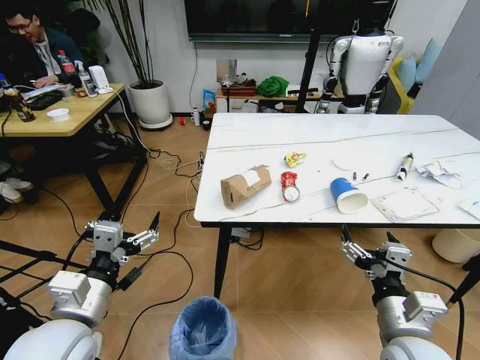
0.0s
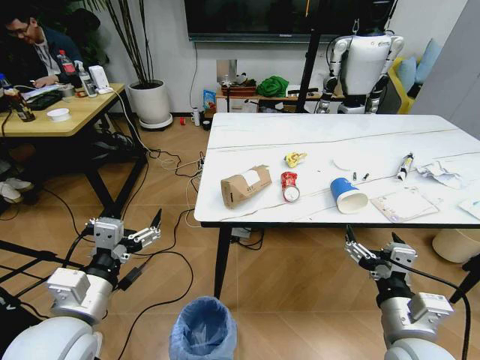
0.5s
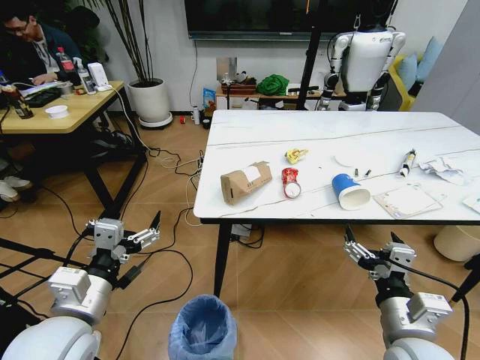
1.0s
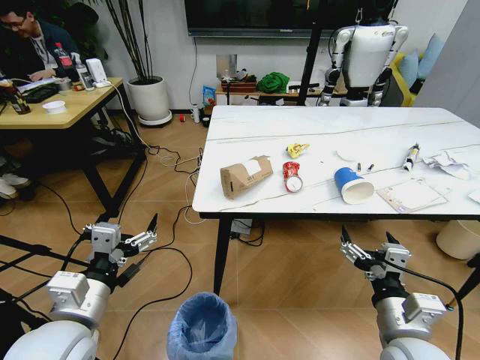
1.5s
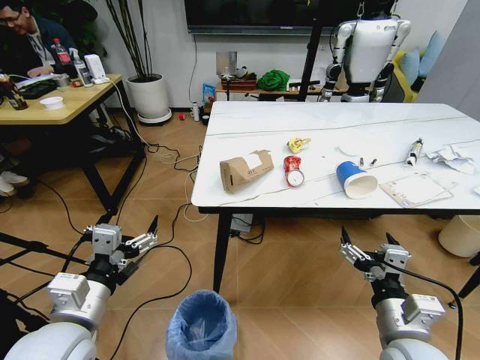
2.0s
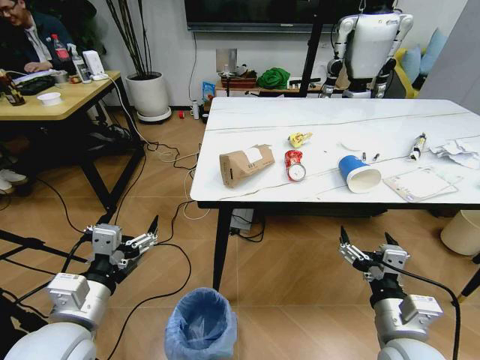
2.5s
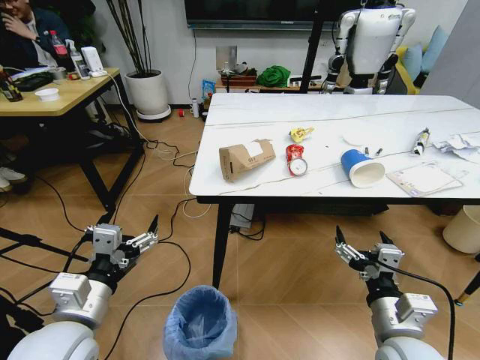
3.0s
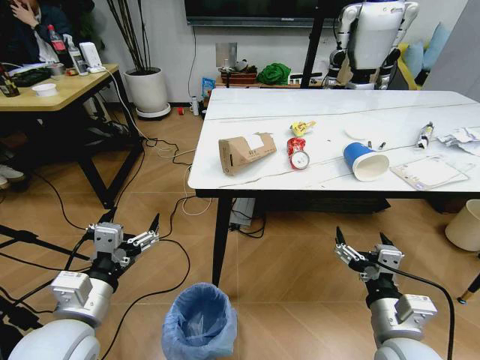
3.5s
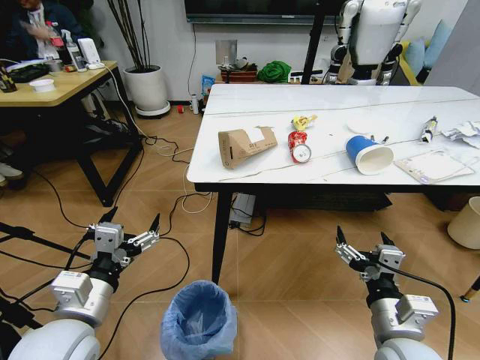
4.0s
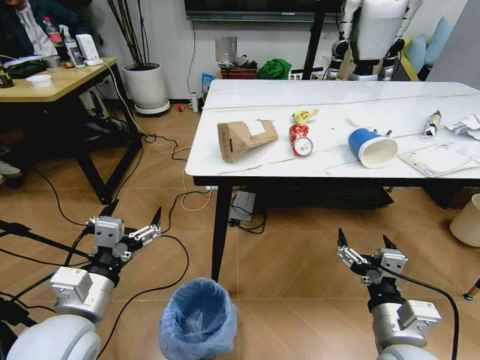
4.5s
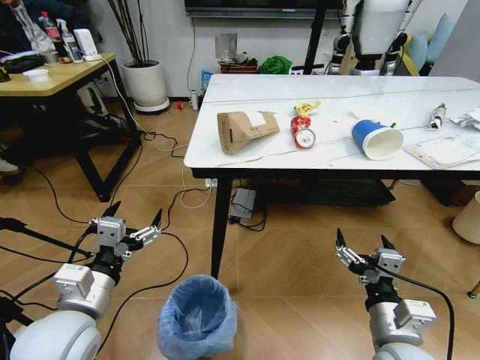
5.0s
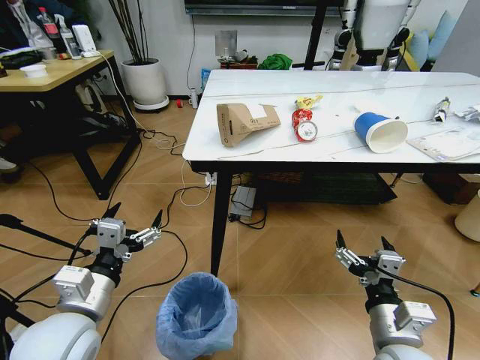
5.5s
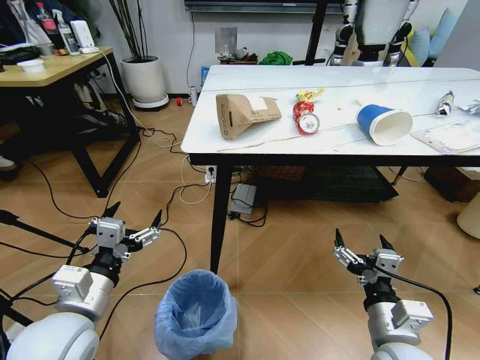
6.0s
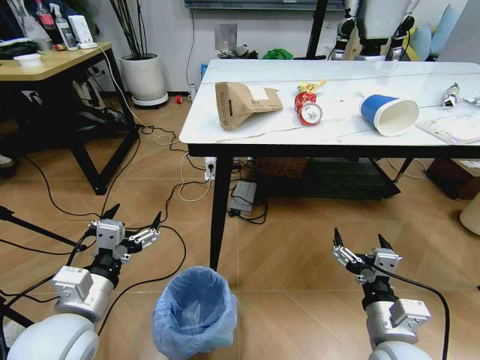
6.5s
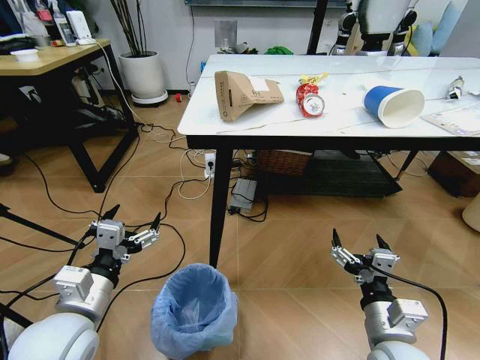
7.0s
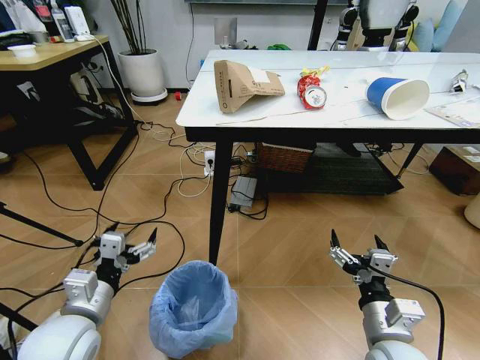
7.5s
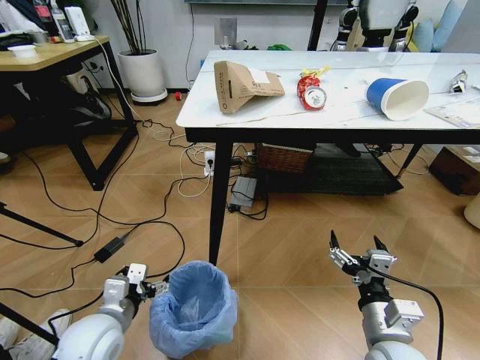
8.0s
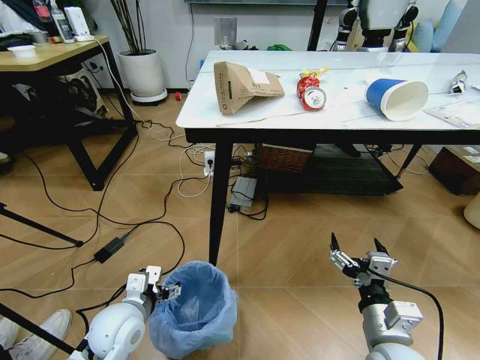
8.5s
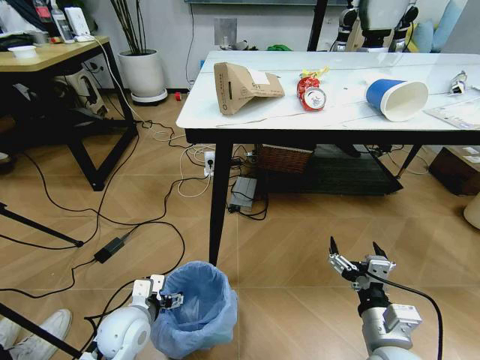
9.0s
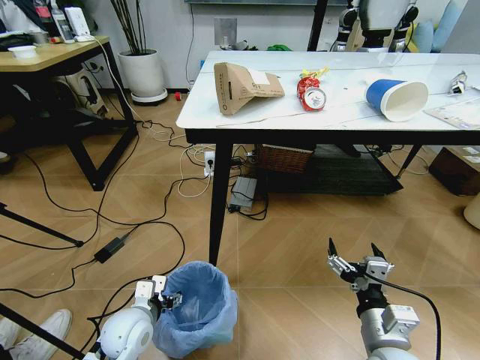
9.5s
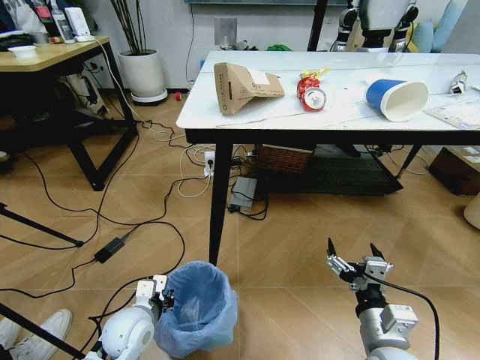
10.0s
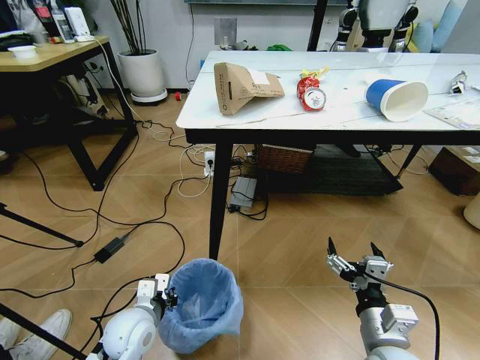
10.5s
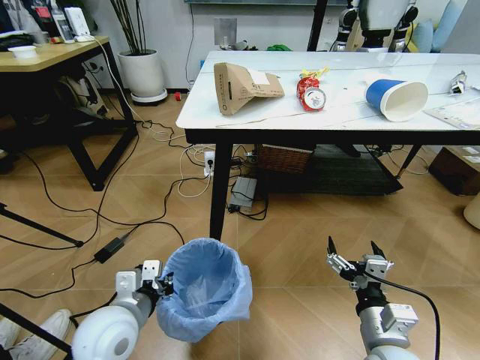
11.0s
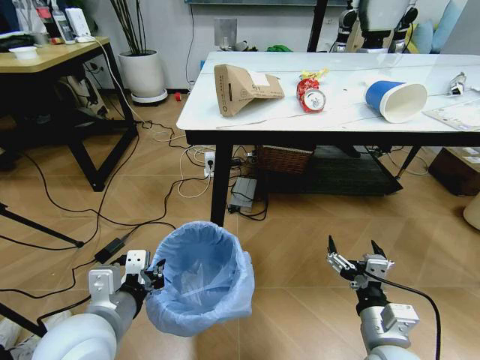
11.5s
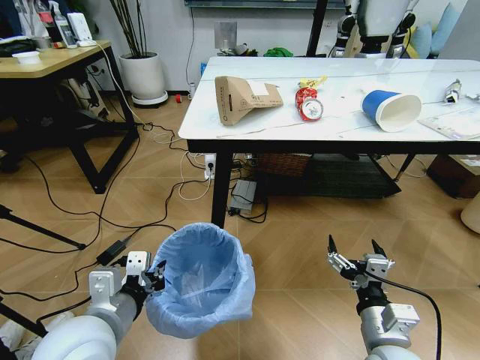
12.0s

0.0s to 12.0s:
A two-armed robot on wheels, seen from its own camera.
Task of the whole recording: Pick up the trash bin and place the trash from the table into it.
6.0s to 8.0s: The left gripper heads downward, covering approximately 10 cm.
8.0s to 10.0s: The left gripper shifts roughly 5 cm downward, and closes up.
10.0s to 12.0s: The left gripper goes roughly 20 cm upward.

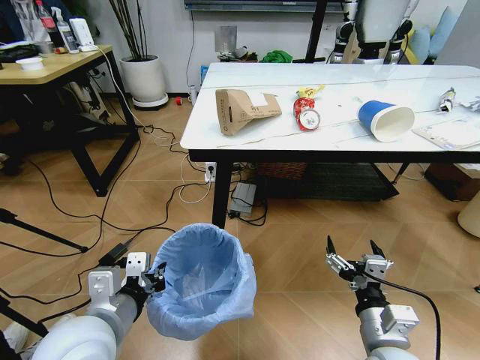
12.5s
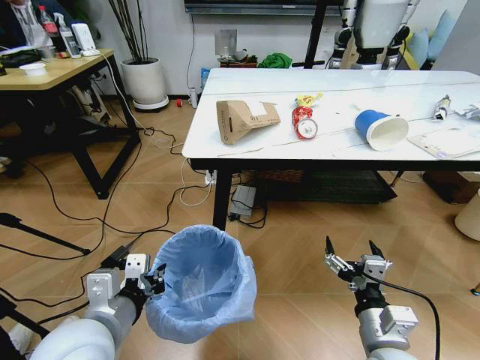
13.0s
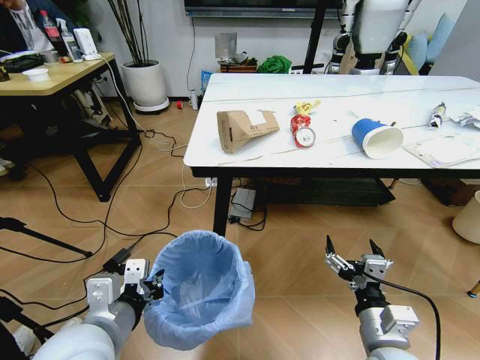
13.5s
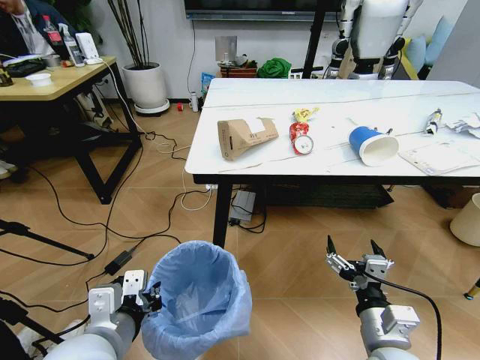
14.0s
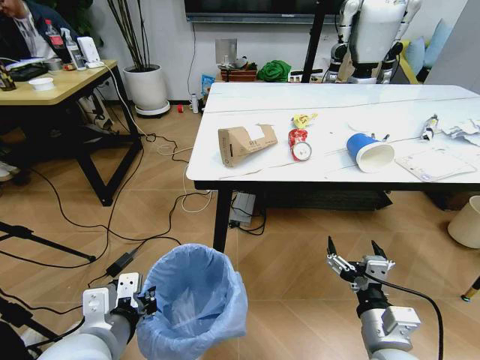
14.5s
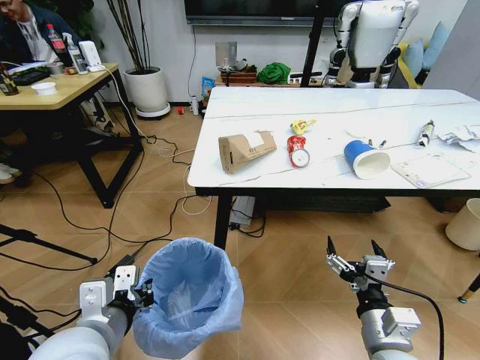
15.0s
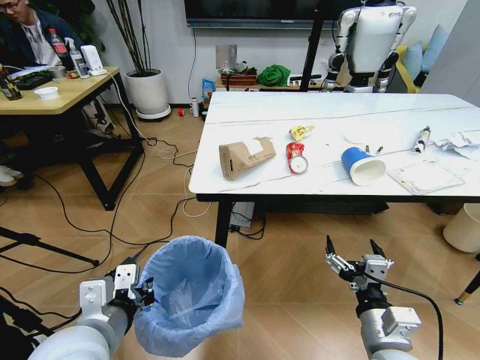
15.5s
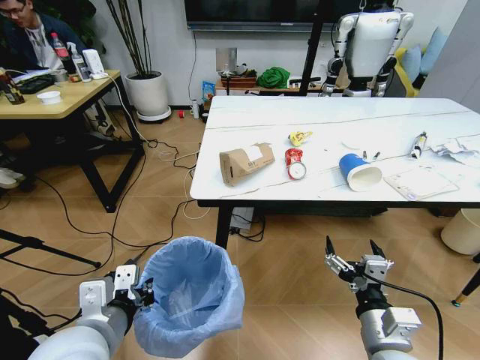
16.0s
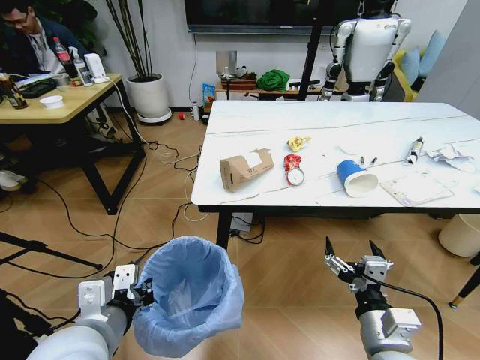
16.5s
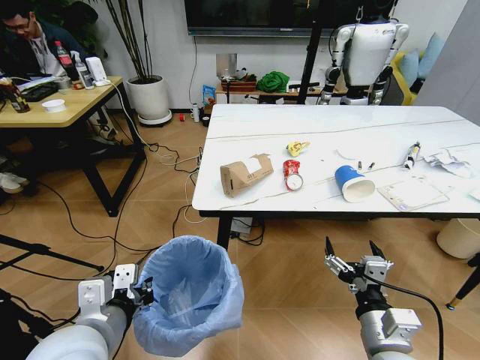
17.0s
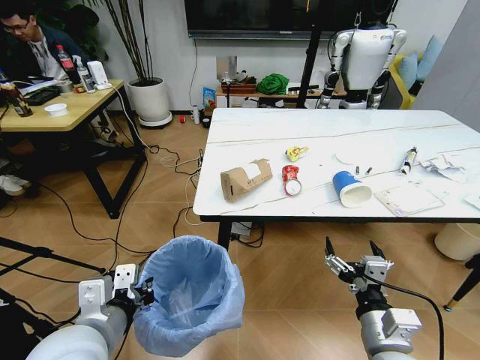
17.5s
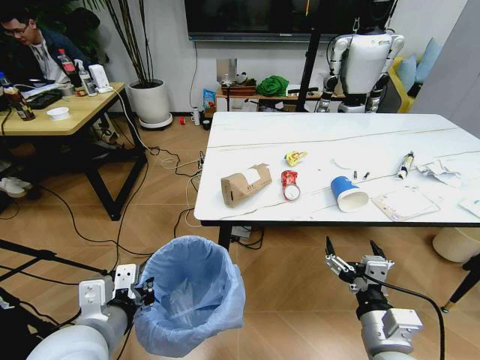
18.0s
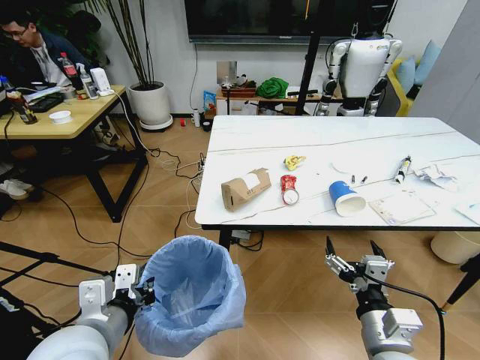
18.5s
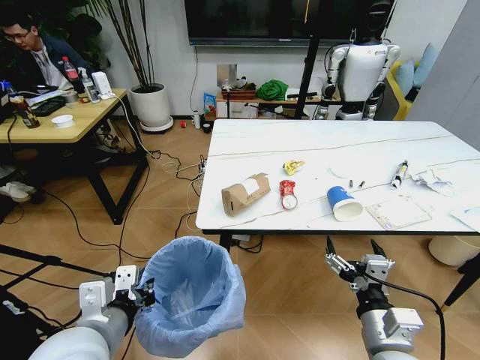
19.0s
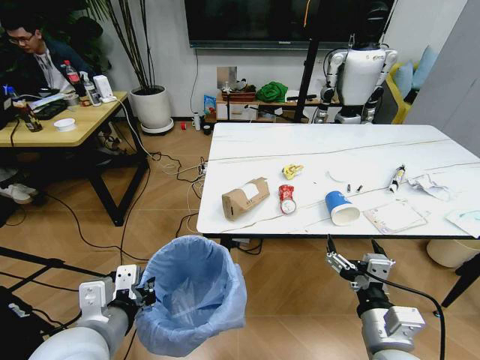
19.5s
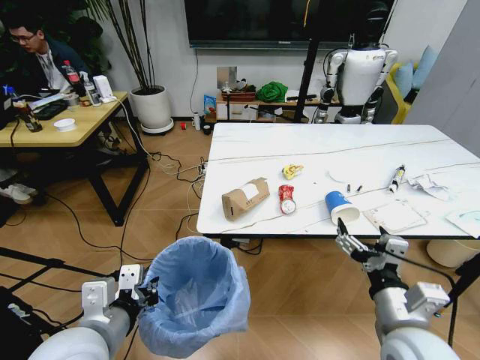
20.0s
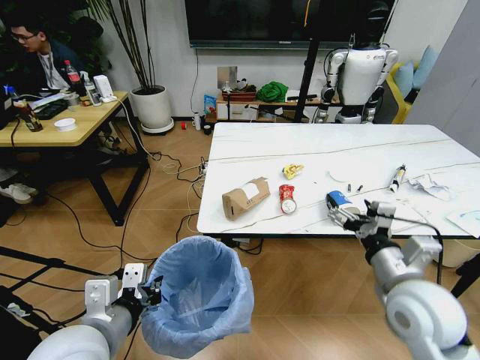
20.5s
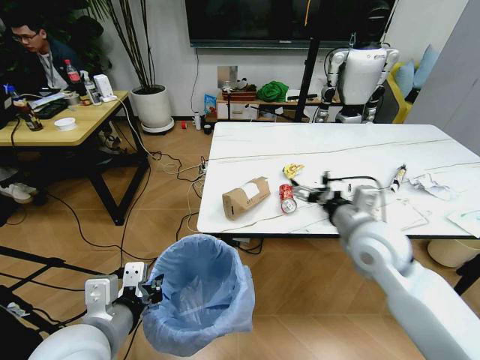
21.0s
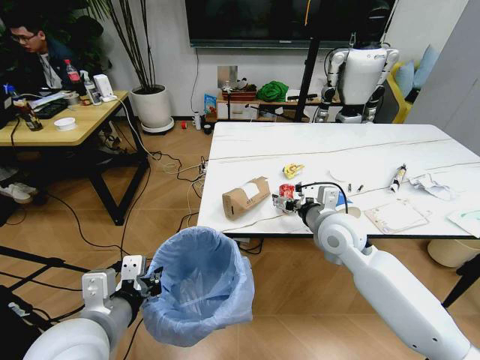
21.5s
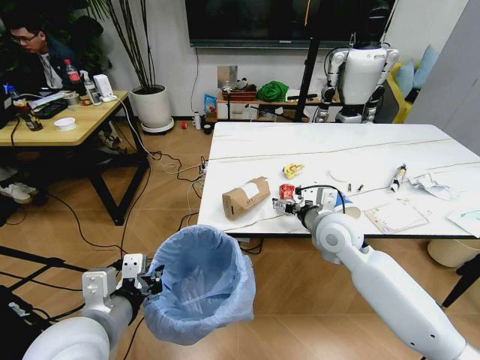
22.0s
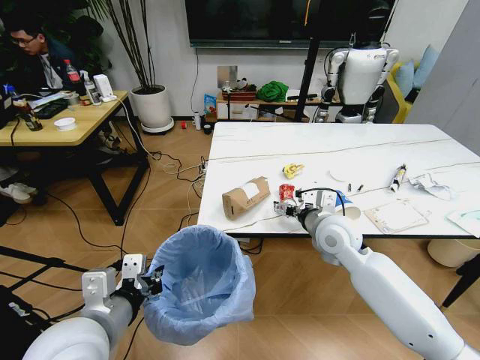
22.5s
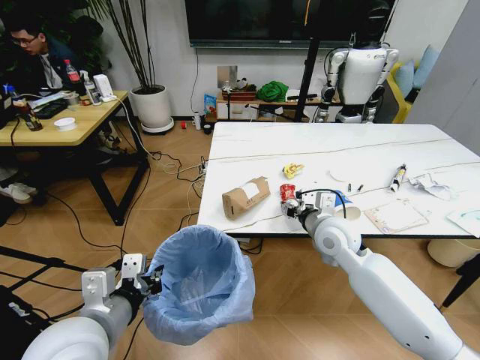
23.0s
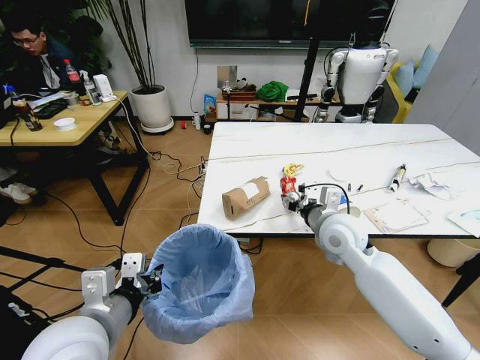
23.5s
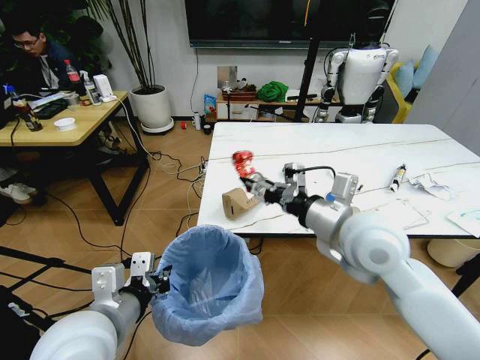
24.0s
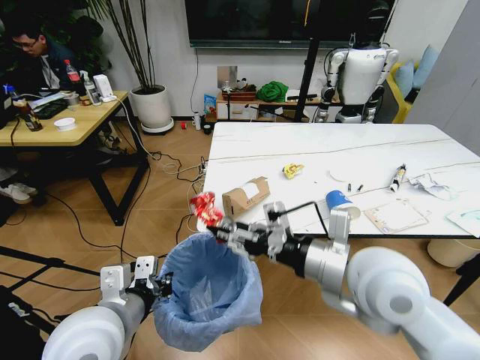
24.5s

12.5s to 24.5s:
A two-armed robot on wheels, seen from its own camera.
Task of the whole recording: Pick up the trash bin and place the trash from the table into it.
18.5s to 20.5s: The right gripper shifts about 10 cm forward and upward.
20.5s to 22.5s: The right gripper travels forward and to the left by some 20 cm.
22.5s to 24.5s: The right gripper shifts roughly 20 cm backward and upward, and closes up.

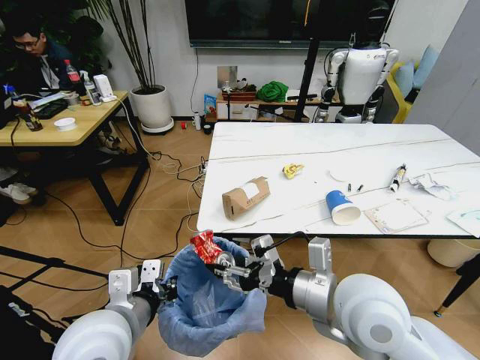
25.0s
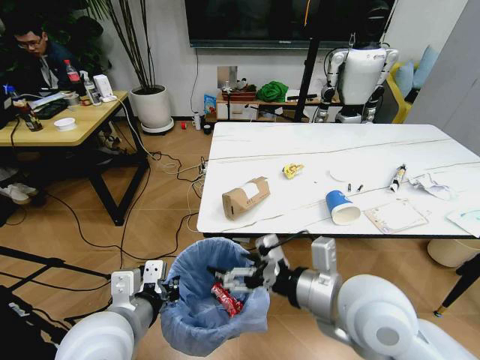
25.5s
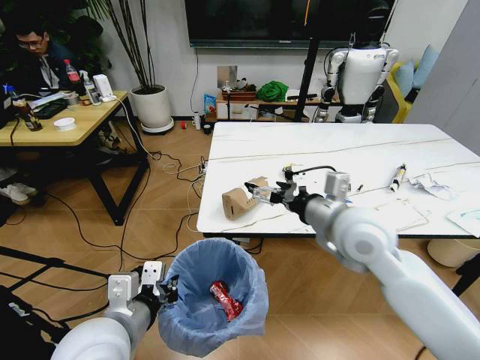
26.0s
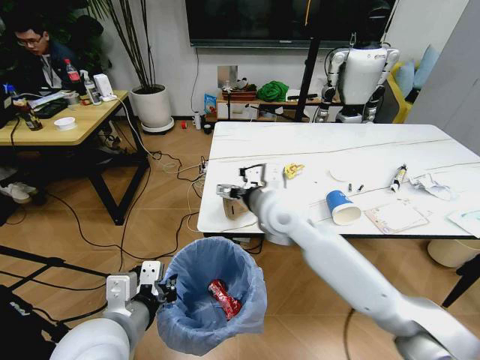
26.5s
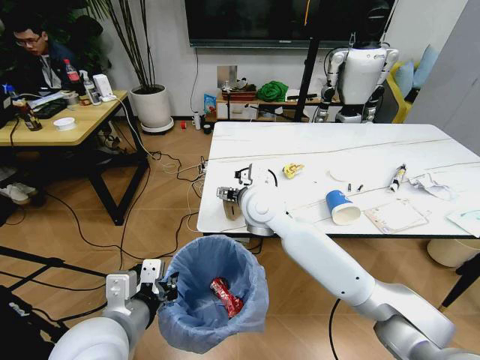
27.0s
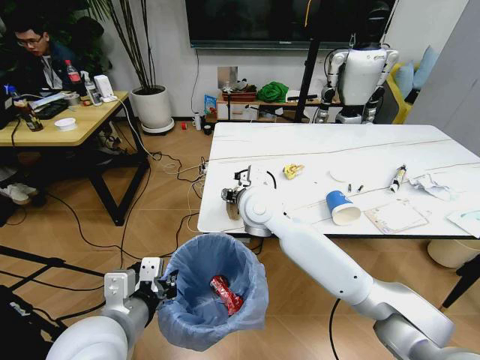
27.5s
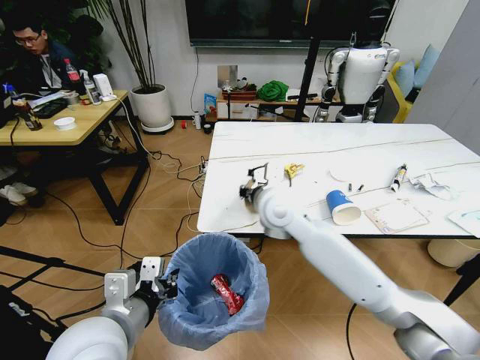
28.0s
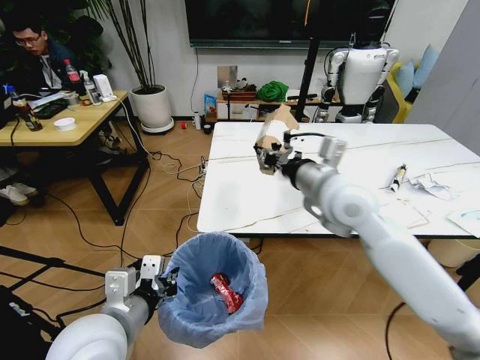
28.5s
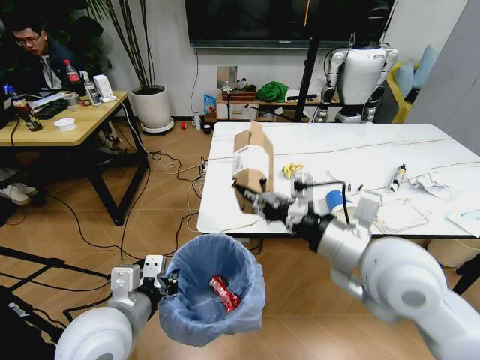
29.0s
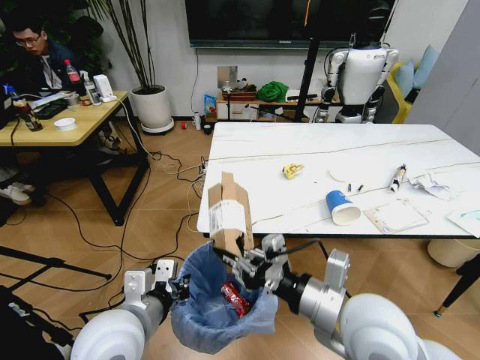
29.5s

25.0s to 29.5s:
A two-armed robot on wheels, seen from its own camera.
Task of the whole recording: Pick up the trash bin and place the trash from the table into it.
25.0s to 27.0s: The right gripper travels forward and to the left by approximately 25 cm, and opens its fingers.
27.0s to 29.5s: The right gripper moves backward and to the right, about 25 cm, and closes its fingers.
